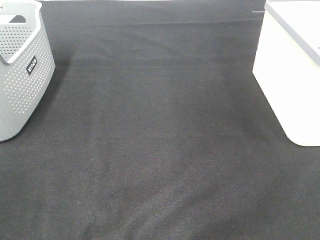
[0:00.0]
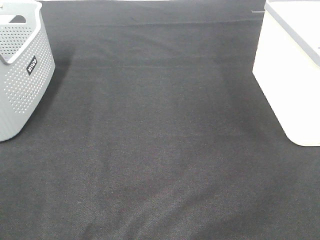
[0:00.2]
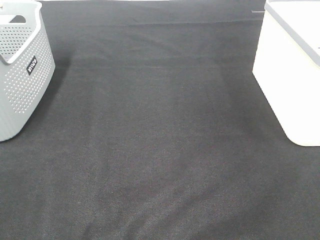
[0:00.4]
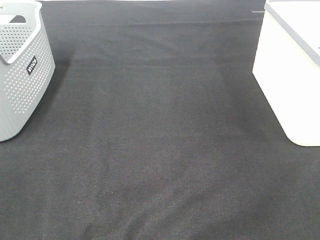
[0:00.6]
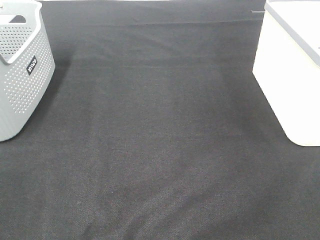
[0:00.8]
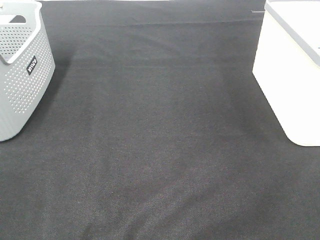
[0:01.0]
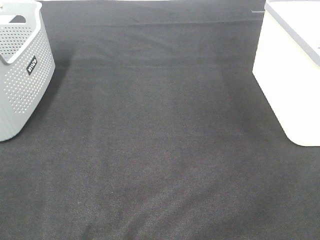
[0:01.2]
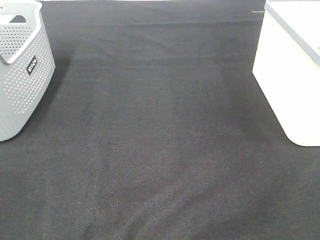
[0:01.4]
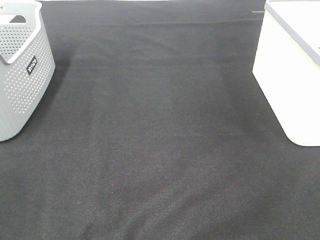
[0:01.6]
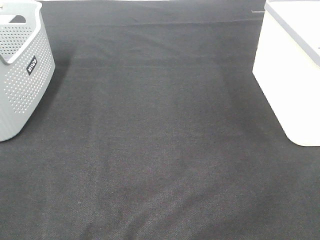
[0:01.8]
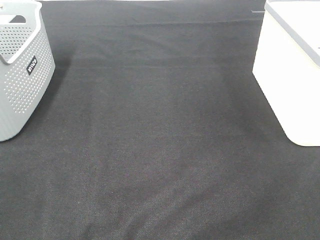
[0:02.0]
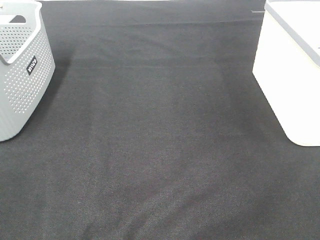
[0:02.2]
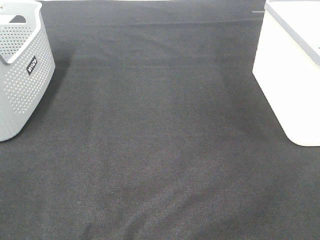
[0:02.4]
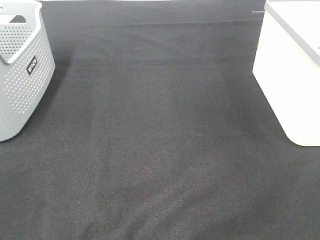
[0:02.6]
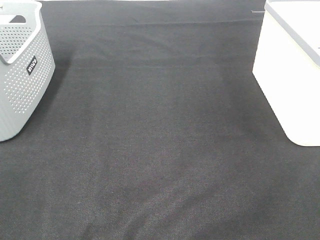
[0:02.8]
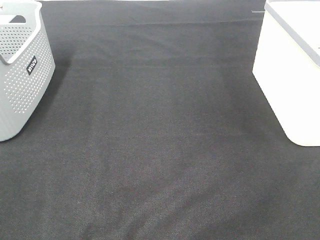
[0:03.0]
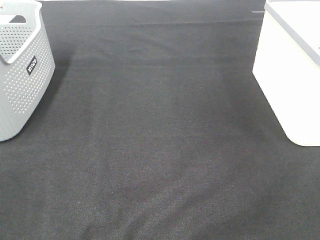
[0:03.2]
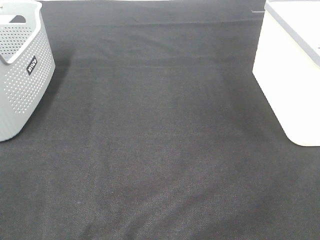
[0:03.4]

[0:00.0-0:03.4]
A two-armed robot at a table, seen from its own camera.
0:01.6 to 0:03.4: Neither gripper changes place.

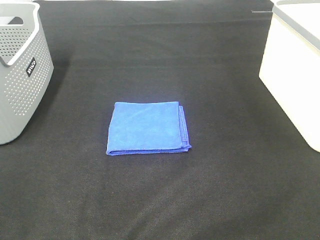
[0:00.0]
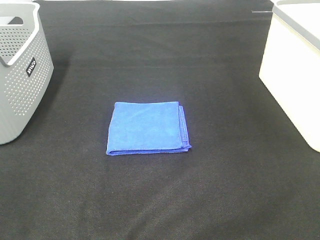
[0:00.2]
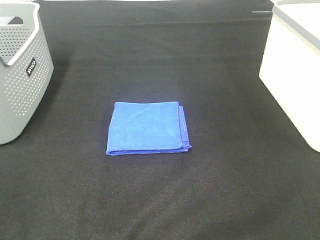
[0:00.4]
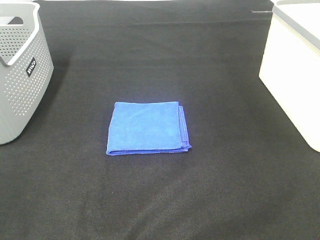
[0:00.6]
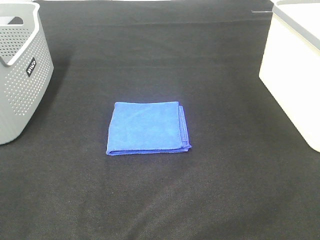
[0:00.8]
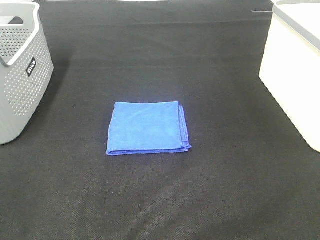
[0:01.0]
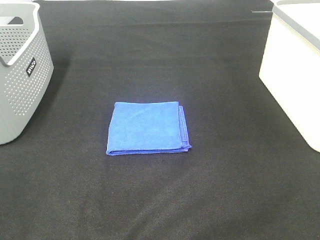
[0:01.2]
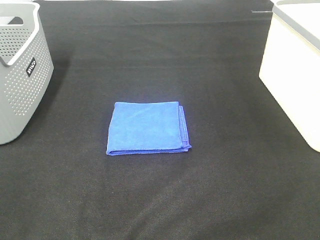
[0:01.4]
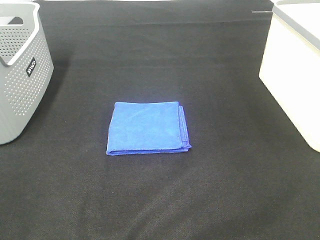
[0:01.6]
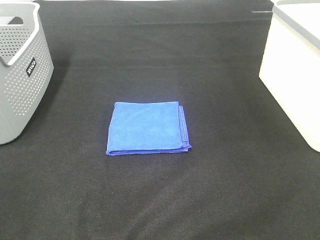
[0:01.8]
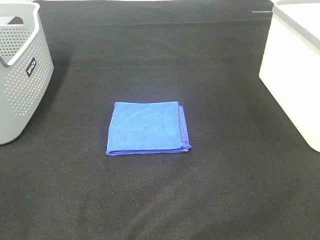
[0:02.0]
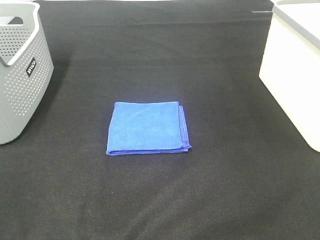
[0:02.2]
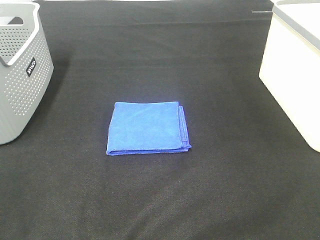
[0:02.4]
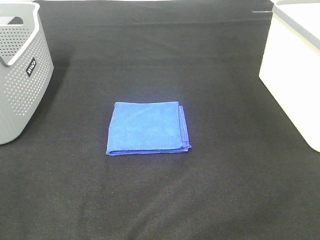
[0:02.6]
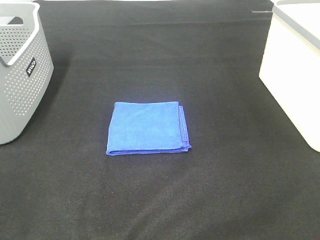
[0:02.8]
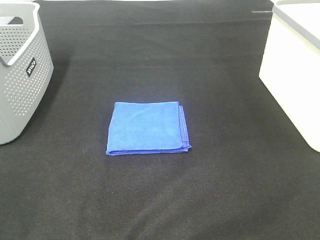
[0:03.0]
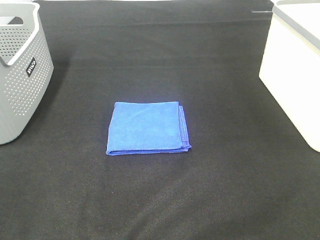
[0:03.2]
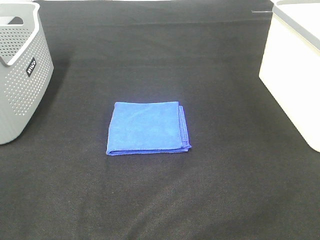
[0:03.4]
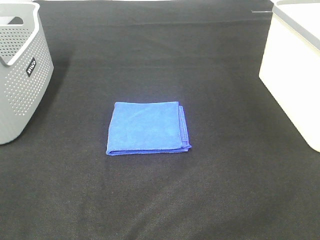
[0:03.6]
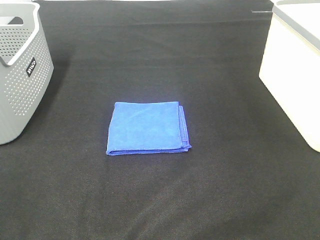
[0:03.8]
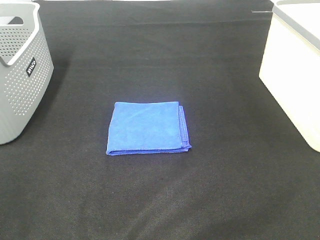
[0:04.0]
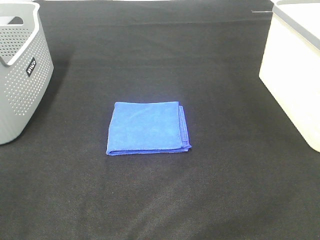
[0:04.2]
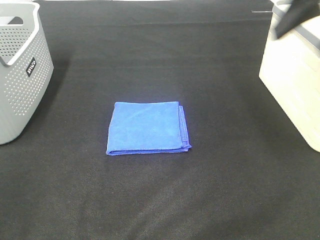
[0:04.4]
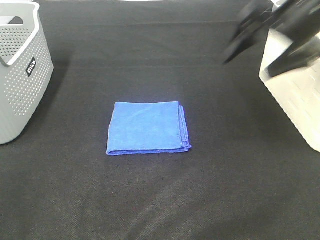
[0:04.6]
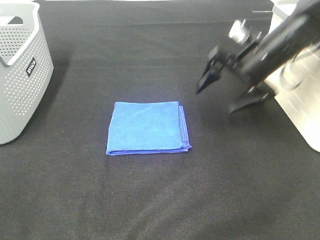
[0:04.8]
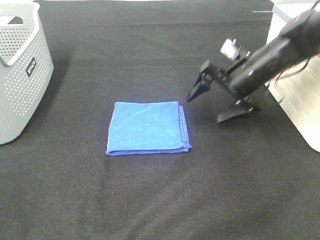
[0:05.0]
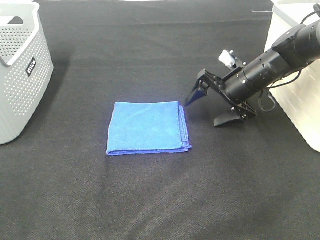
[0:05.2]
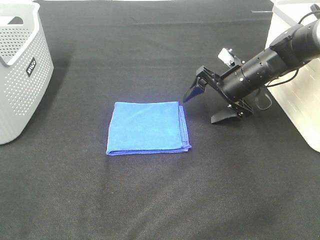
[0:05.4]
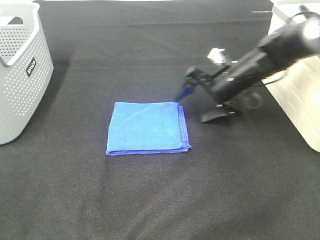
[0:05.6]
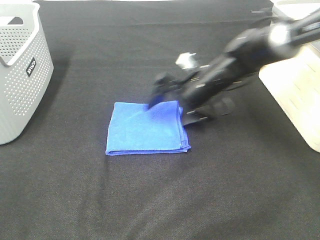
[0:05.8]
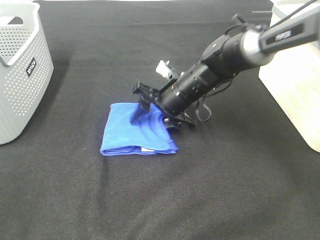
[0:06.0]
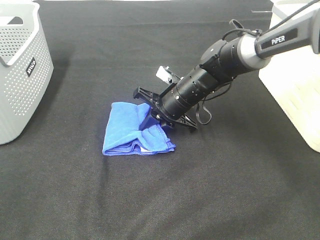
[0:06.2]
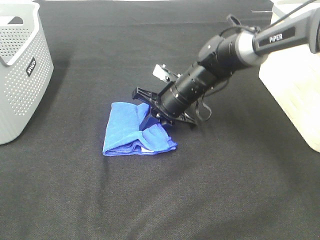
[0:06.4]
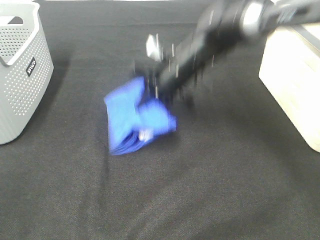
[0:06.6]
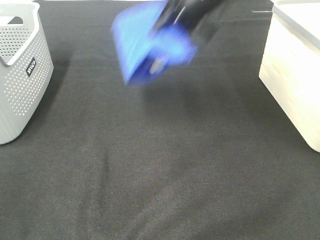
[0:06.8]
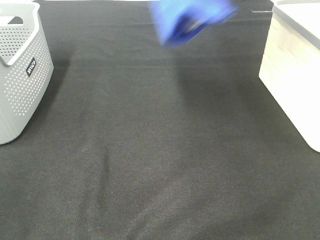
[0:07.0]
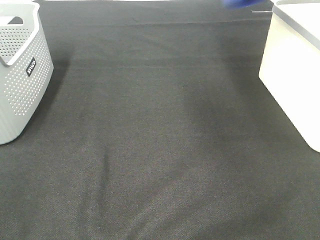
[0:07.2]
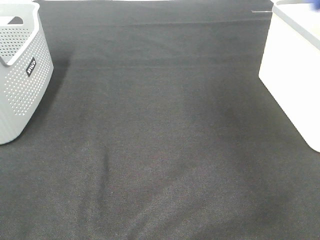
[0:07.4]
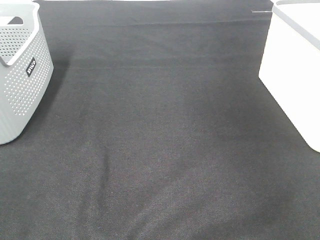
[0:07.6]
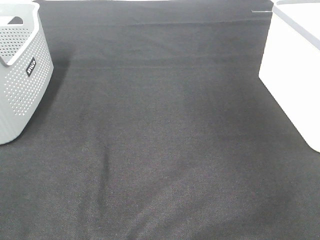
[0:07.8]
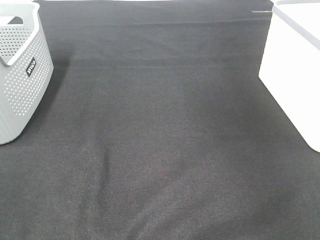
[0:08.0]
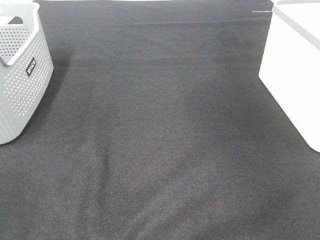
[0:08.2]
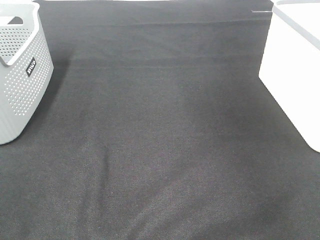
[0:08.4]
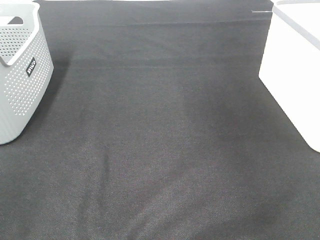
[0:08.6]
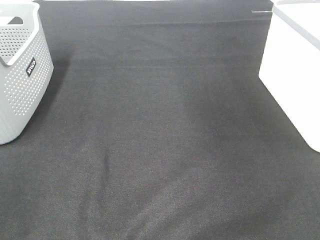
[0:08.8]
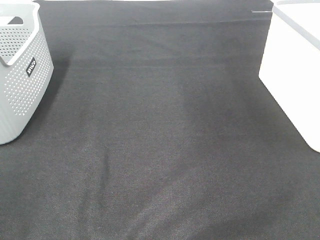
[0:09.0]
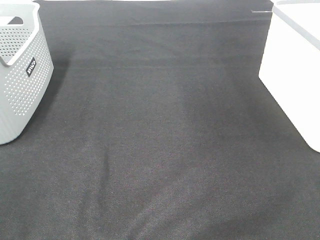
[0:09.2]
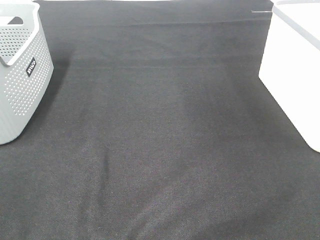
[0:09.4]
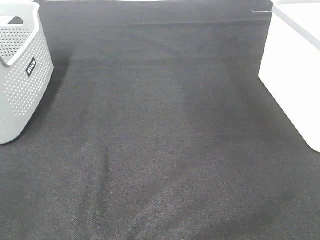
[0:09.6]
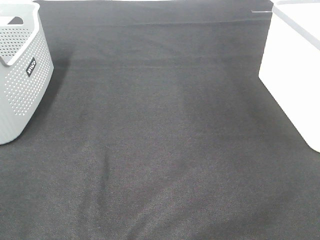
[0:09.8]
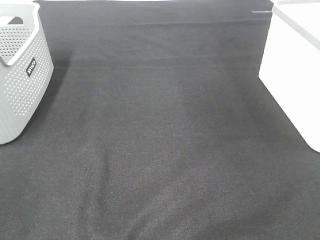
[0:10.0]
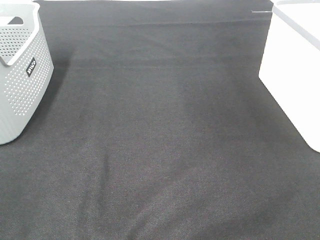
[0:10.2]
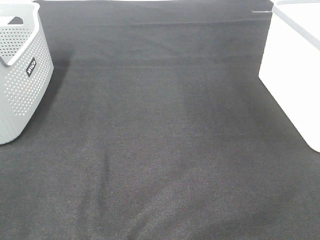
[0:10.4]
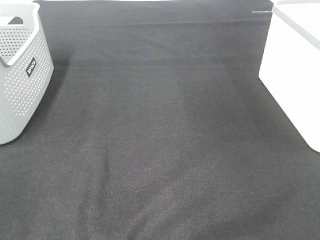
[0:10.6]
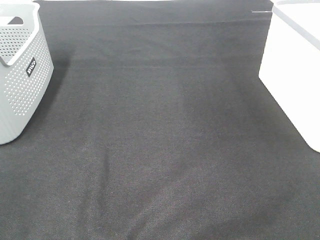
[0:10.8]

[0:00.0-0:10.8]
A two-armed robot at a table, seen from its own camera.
Step, 0:00.0 to 0:06.2: Right hand: grab the folded blue towel.
Step, 0:06.4 to 0:08.0: Right hand: place the blue towel in right basket.
0:00.0 to 0:03.0: Both grippers stay about where they are.
0:03.0 to 0:04.6: The right gripper heads forward, covering approximately 35 cm.
0:04.6 to 0:06.2: The right gripper heads downward and to the left, covering approximately 25 cm, and closes.
0:06.2 to 0:07.8: The right gripper travels to the right and upward by roughly 50 cm, and opens.

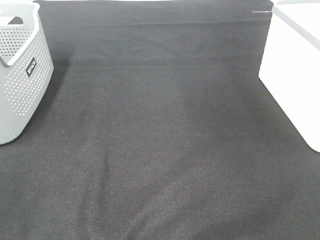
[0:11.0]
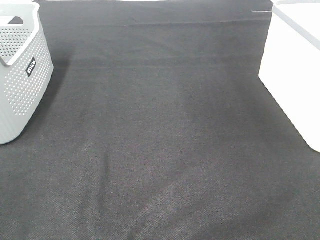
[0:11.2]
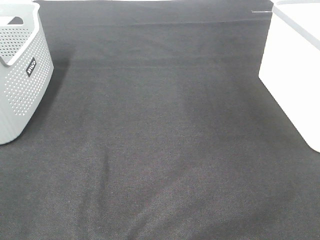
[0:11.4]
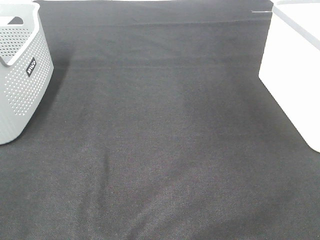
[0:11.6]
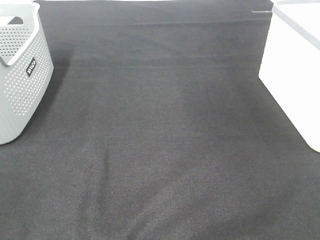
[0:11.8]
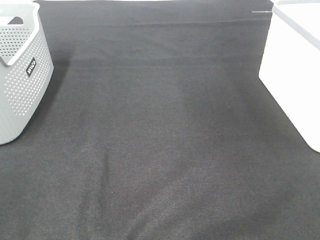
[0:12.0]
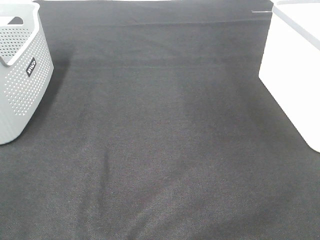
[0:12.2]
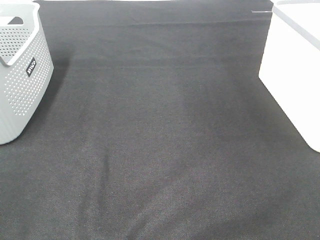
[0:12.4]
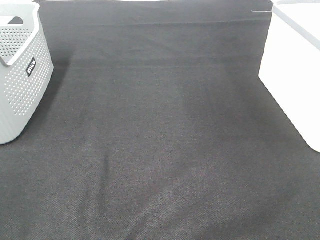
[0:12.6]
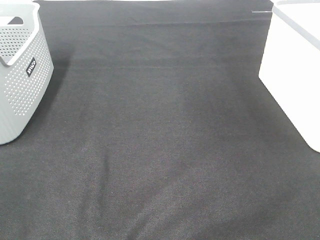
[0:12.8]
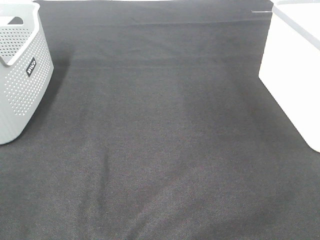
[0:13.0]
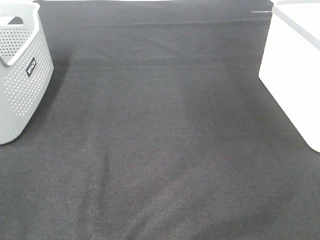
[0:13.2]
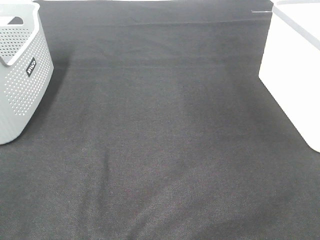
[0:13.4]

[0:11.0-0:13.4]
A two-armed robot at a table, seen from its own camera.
0:11.0 to 0:13.4: Neither gripper changes place.
